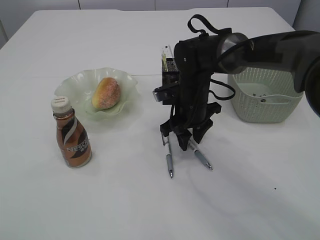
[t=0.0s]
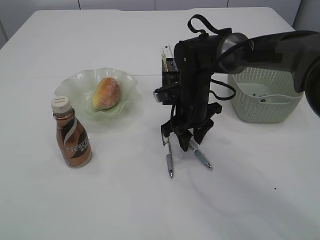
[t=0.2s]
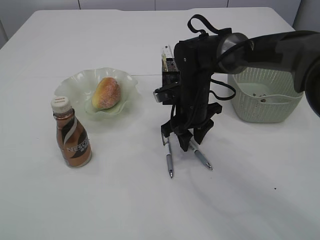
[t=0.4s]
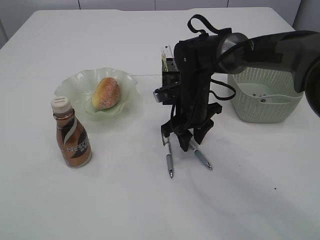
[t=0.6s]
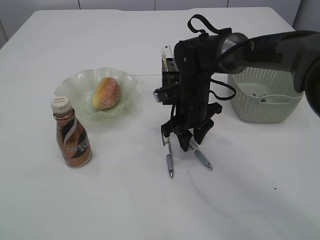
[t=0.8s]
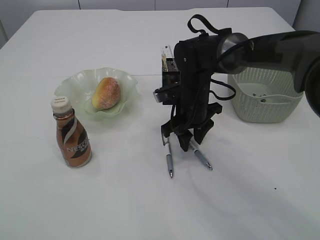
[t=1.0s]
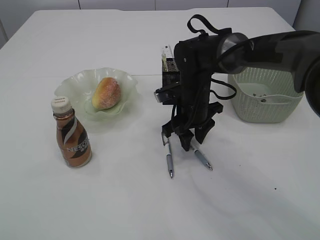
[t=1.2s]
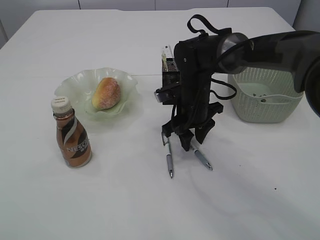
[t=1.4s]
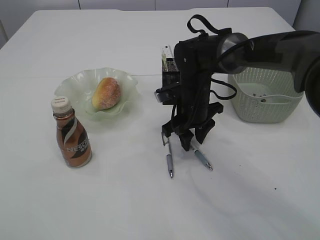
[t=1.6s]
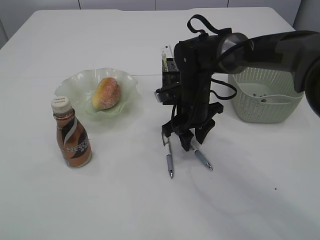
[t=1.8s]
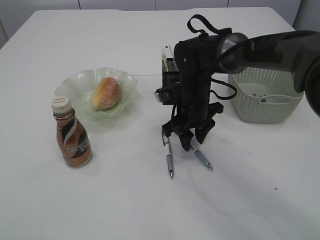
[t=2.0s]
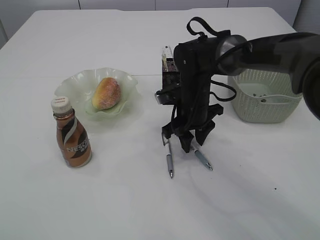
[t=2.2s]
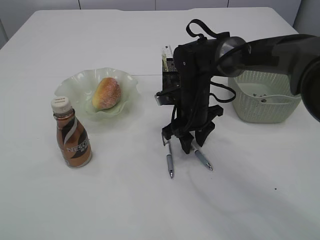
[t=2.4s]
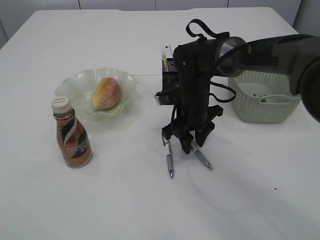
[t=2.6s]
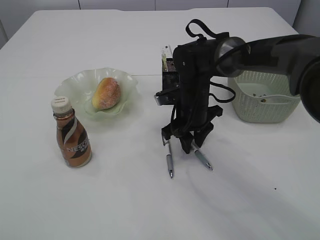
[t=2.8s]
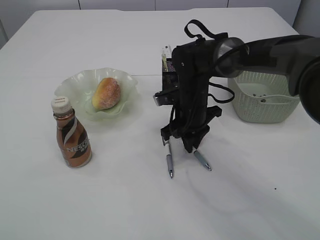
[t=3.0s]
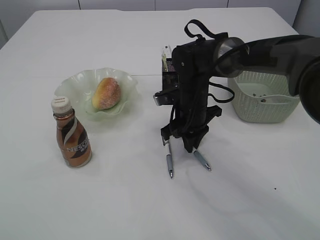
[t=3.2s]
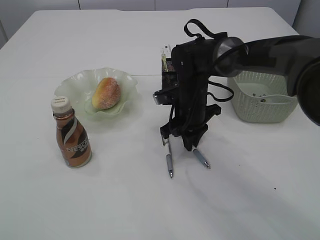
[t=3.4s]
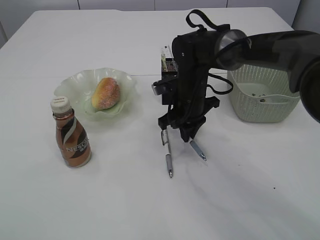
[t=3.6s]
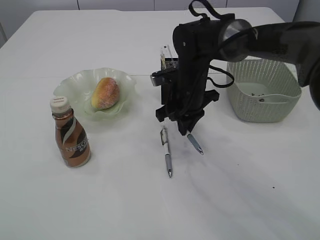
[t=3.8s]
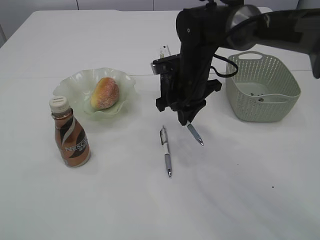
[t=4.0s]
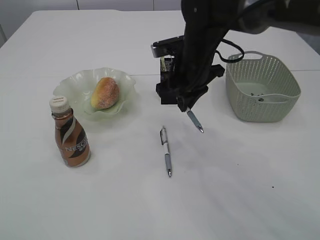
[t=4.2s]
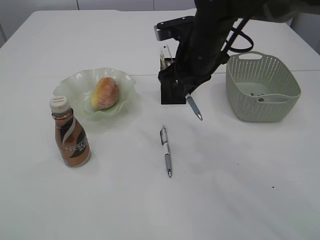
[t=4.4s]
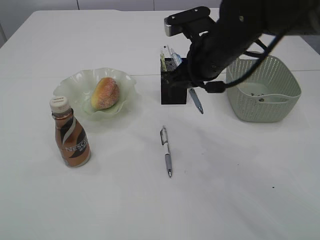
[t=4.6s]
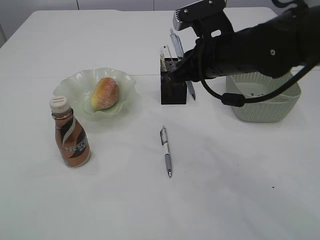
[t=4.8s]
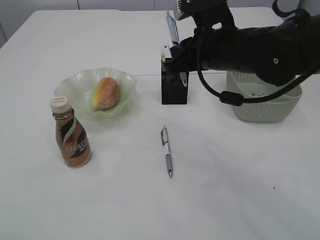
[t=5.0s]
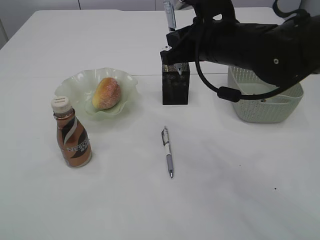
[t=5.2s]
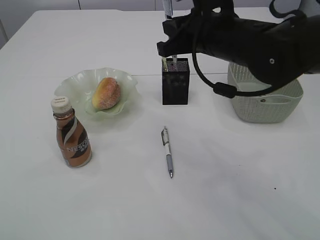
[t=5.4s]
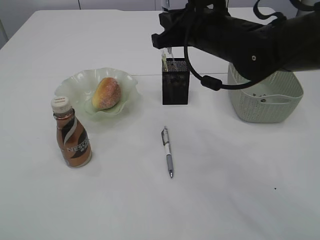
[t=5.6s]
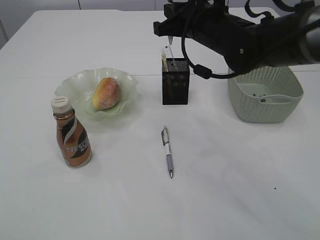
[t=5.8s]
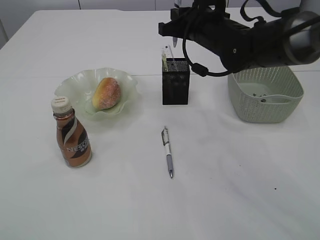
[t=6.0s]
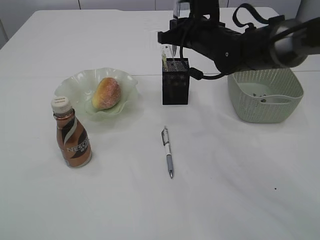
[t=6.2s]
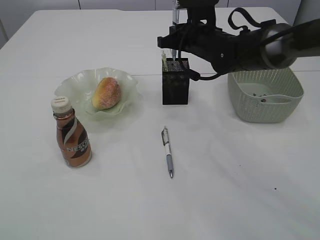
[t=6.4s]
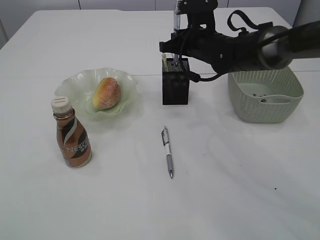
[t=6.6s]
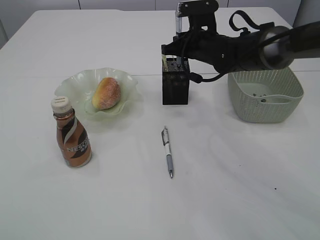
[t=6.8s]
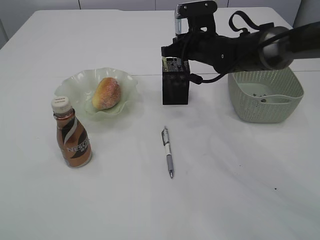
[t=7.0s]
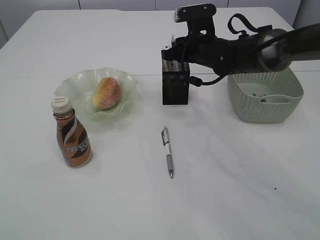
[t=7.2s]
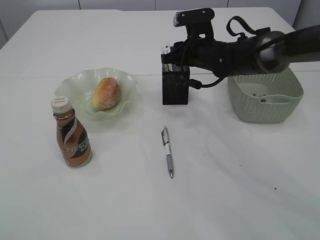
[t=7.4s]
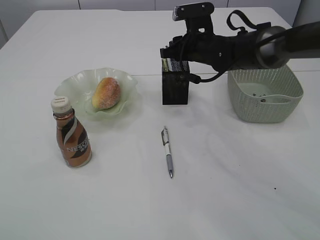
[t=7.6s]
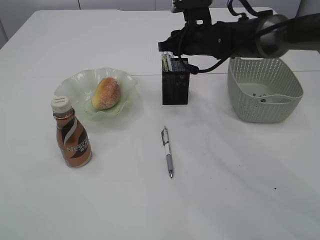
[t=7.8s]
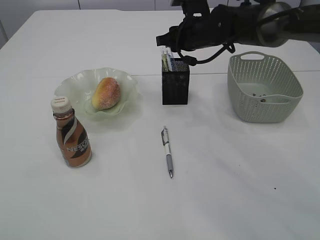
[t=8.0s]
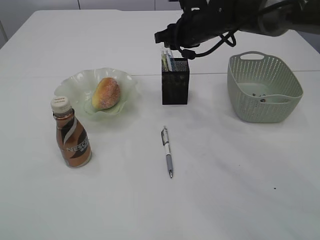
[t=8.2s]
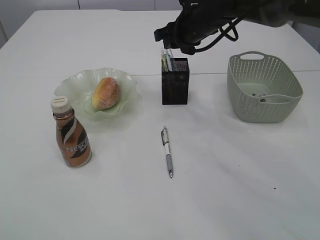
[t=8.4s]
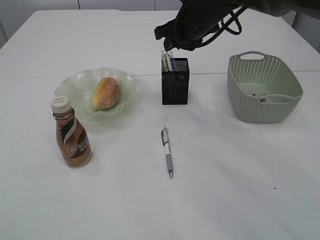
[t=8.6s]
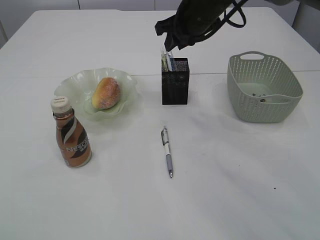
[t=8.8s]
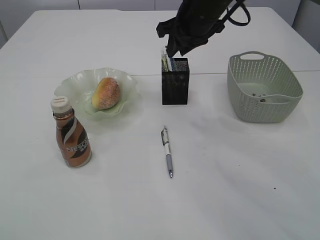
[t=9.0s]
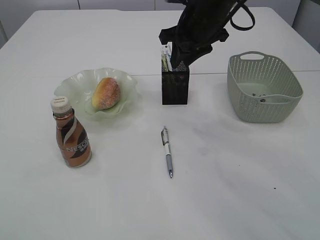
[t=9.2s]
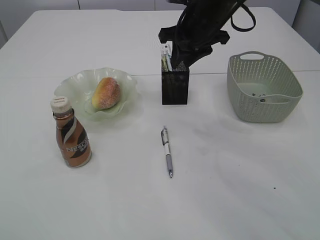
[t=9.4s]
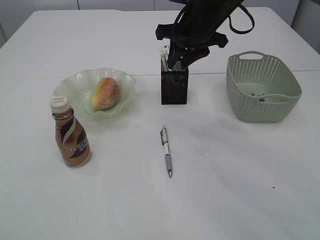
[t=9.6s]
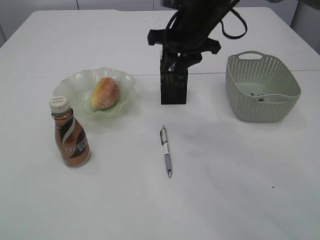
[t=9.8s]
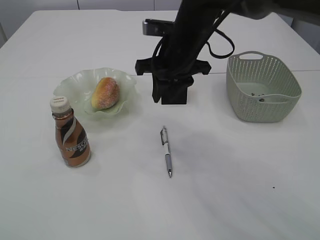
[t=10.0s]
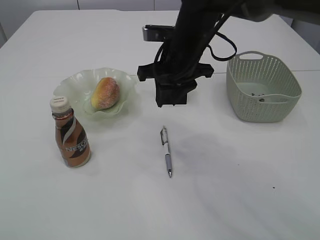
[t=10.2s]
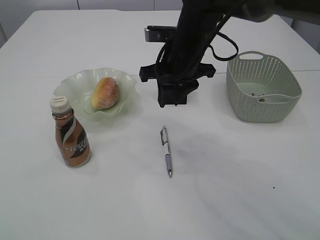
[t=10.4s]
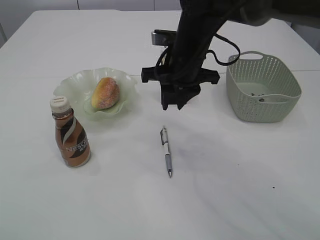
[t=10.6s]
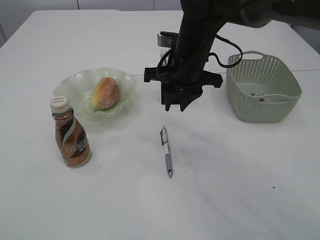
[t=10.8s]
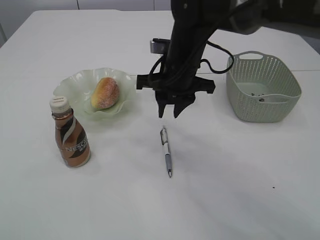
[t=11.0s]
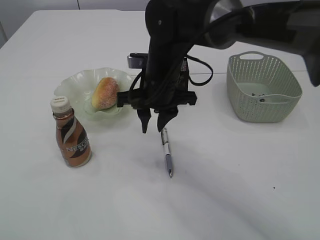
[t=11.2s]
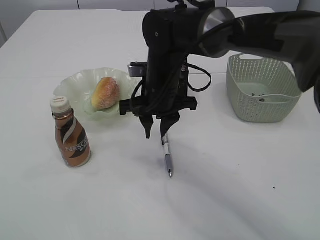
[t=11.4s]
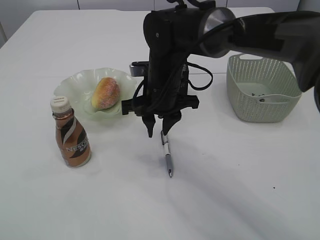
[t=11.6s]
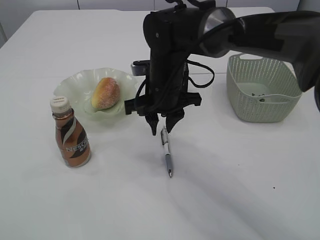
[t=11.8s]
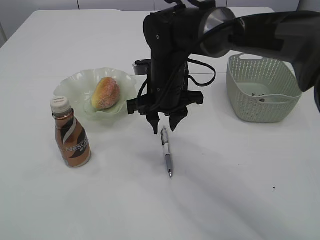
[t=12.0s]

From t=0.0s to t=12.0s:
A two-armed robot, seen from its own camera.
Step, from t=0.0s to t=4.2s: Pick up the pen with right arm.
Step, from t=4.4s to t=8.4s: Place the pen into the pen holder.
From t=0.0s to t=3.0s: Both grippers stay put.
From t=3.0s to t=4.4s: The right gripper is displaced upward by roughly 10 cm.
From t=6.0s to t=7.6s: The right gripper goes roughly 5 cm downward, and opens its fingers.
From t=7.6s to t=9.0s: The right gripper moves upward, roughly 10 cm.
From t=9.0s to t=10.4s: The right gripper moves backward, approximately 5 cm.
From t=10.4s to t=12.0s: The right gripper shifts approximately 5 cm downward.

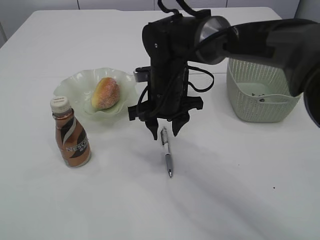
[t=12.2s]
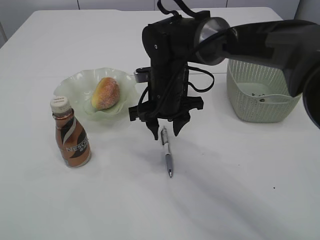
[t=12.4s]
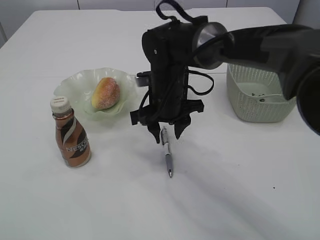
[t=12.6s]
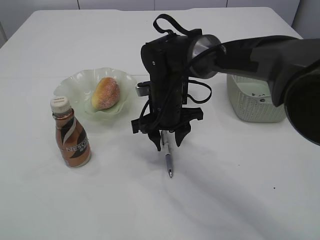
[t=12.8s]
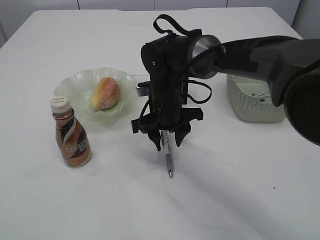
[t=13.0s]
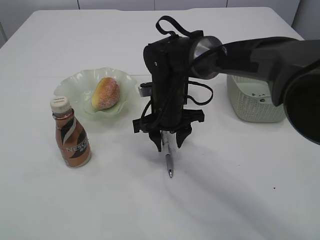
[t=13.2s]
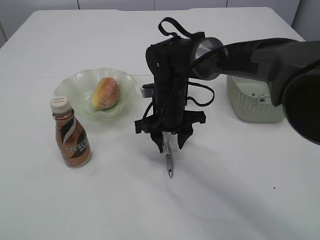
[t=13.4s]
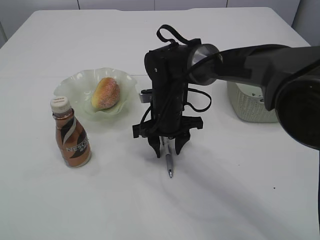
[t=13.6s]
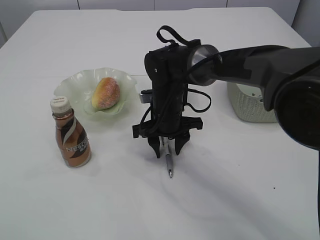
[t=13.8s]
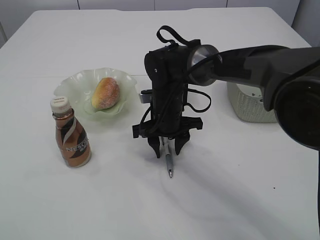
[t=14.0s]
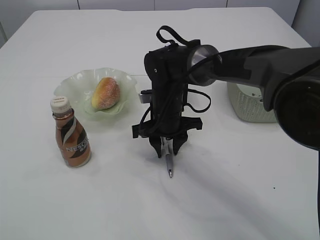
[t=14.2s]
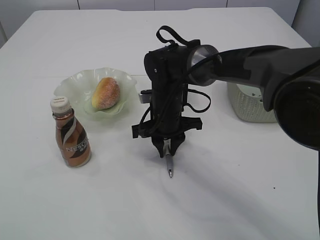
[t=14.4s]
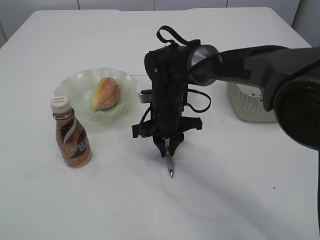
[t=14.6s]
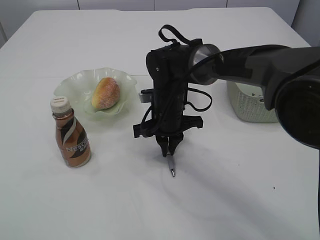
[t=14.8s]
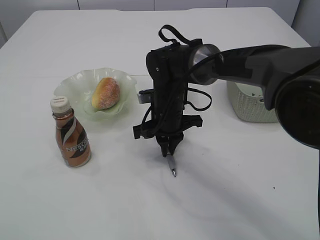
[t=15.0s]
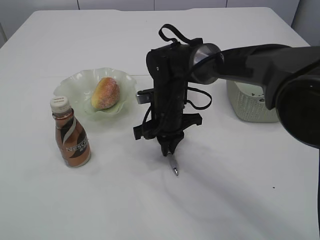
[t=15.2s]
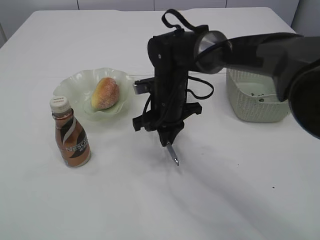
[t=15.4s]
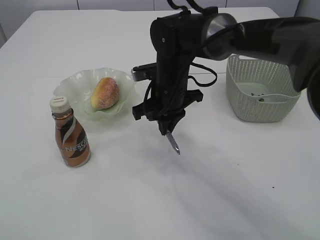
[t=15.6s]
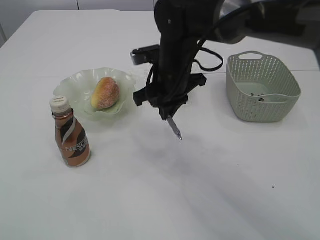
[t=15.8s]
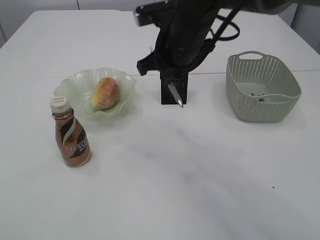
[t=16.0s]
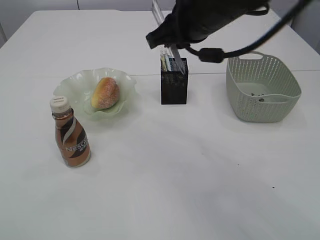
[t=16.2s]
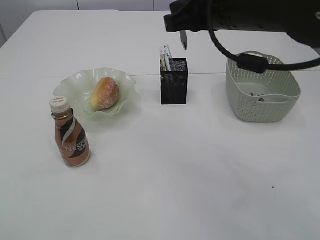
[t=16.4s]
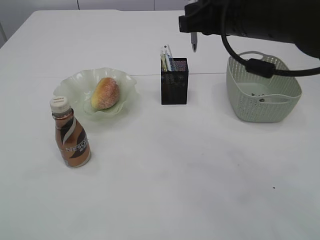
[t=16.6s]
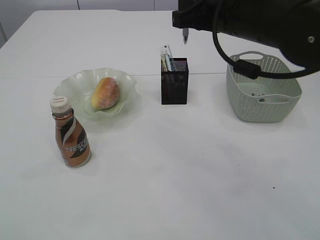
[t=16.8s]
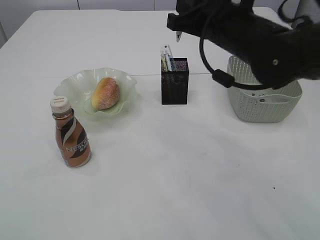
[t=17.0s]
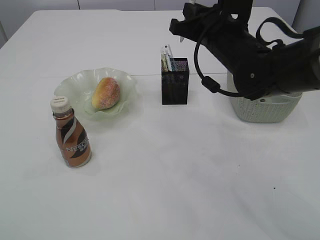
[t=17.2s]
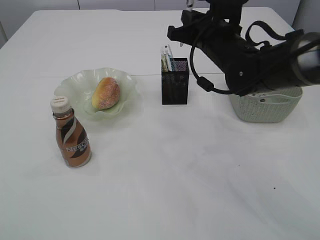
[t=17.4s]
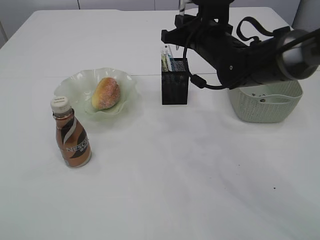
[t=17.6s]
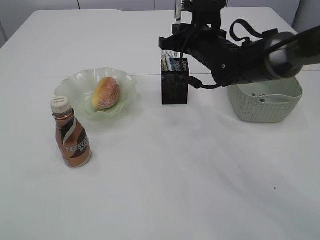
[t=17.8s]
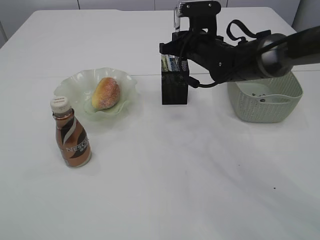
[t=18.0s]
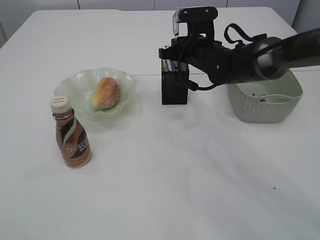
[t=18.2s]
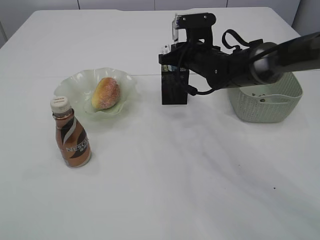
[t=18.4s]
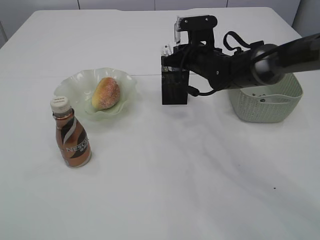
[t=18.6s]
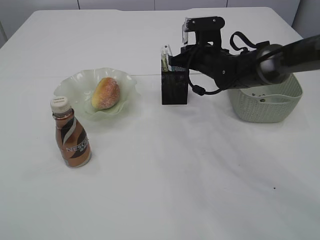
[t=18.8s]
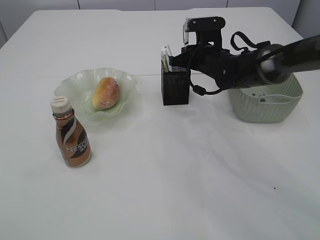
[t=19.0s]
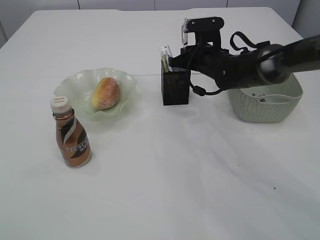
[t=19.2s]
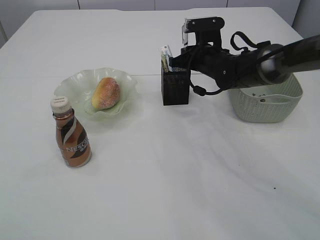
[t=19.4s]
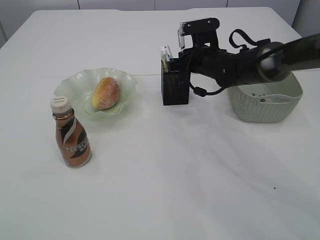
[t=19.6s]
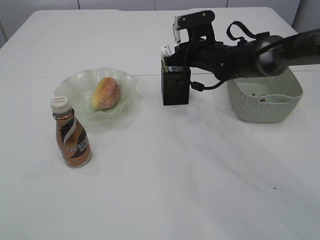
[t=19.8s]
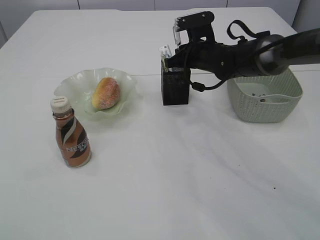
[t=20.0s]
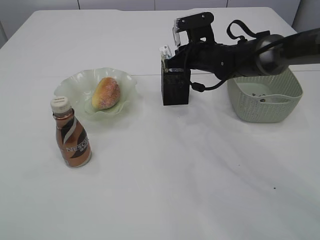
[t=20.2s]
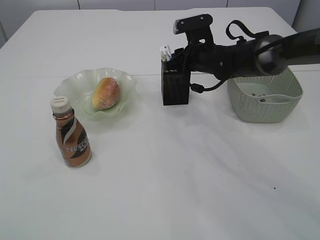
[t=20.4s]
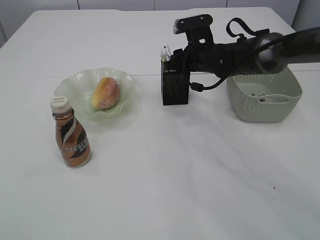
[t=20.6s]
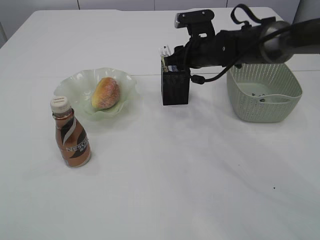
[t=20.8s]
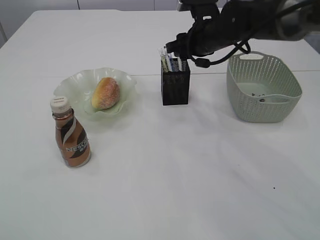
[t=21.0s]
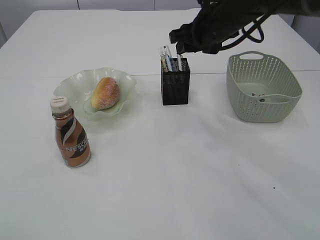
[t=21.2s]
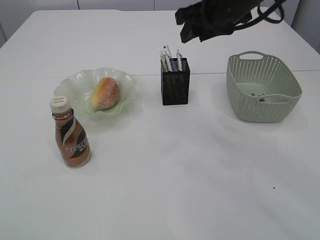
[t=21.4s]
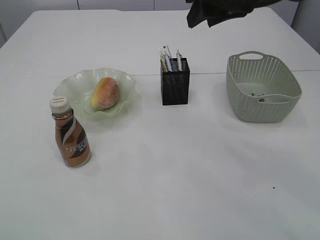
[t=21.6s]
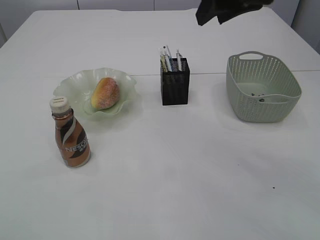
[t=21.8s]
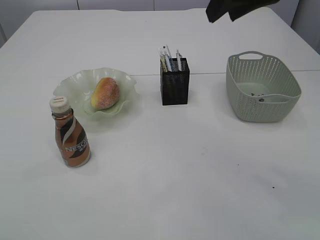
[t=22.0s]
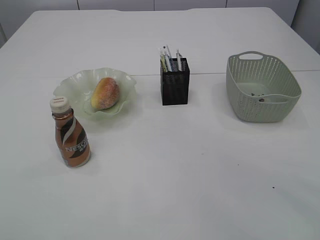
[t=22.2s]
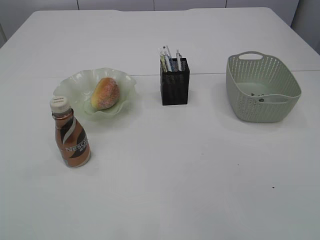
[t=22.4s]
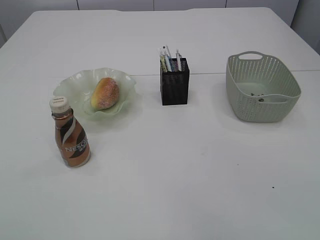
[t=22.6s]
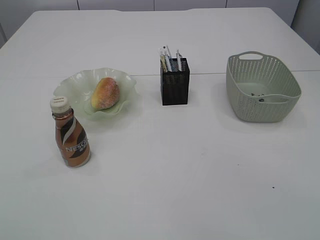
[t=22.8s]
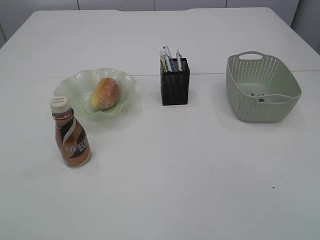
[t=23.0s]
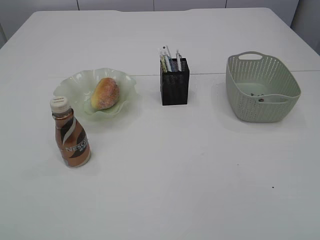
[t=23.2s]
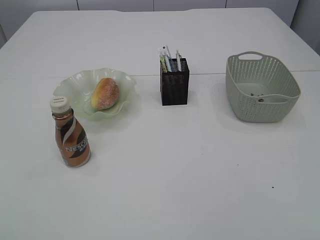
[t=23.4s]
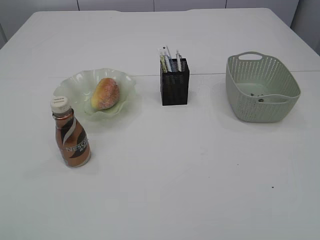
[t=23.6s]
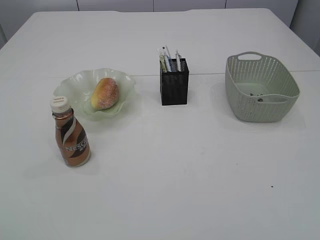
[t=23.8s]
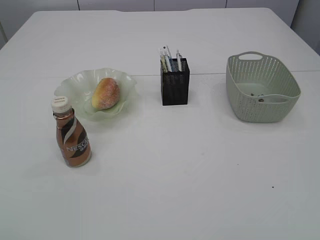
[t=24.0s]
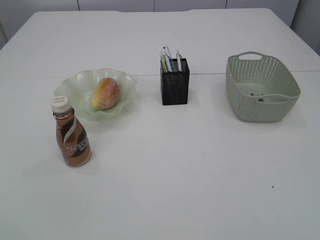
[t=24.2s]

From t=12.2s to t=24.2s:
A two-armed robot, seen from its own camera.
Step, from t=12.2s to t=15.6s: Pick up the pen with right arm.
Step, from t=15.8s to t=21.4s: Place the pen into the pen holder.
From t=12.2s to t=13.8s: The right gripper travels downward by roughly 5 cm.
From t=13.8s to t=15.2s: The right gripper closes.
From t=15.2s to t=16.6s: The right gripper travels upward and to the right by roughly 20 cm.
From t=16.6s to t=18.2s: The right gripper moves forward and downward, about 20 cm.
From t=18.2s to t=19.8s: The grippers make only small movements.
From t=19.8s to t=21.2s: The right gripper heads upward, covering about 10 cm, and opens.
From t=21.2s to t=22.6s: The left gripper moves some 5 cm, and opens its fingers, while the right gripper goes approximately 35 cm backward, upward and to the right.
